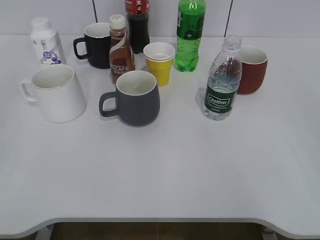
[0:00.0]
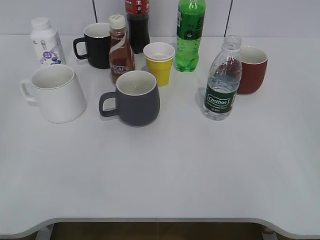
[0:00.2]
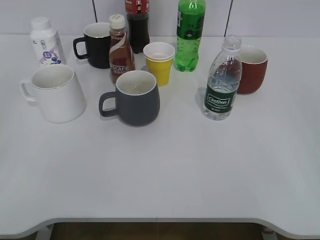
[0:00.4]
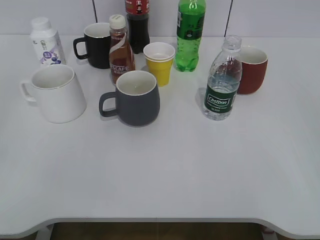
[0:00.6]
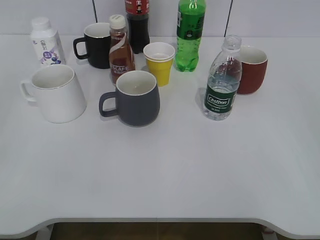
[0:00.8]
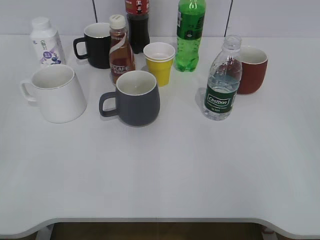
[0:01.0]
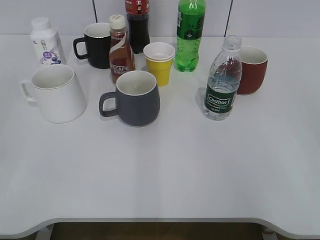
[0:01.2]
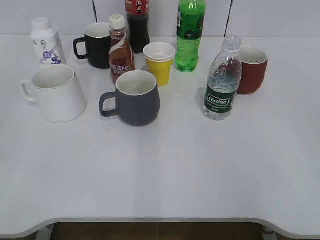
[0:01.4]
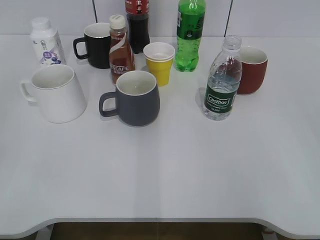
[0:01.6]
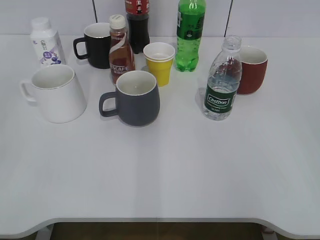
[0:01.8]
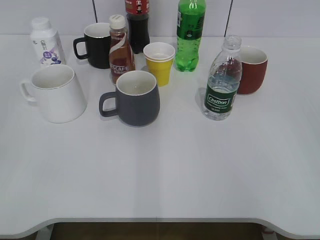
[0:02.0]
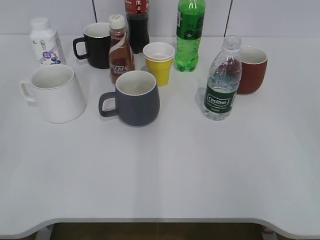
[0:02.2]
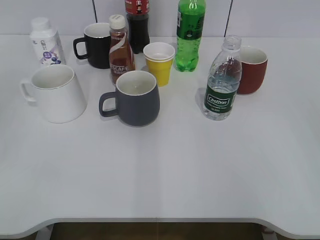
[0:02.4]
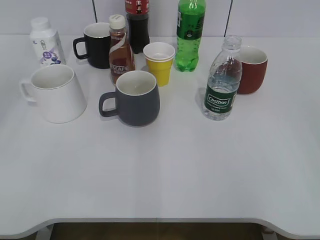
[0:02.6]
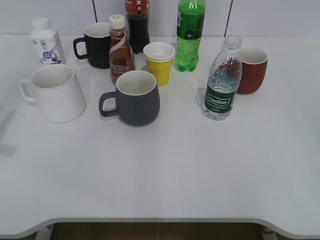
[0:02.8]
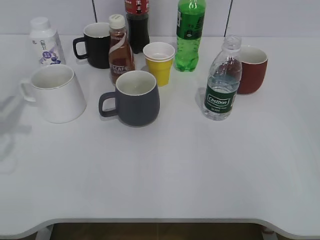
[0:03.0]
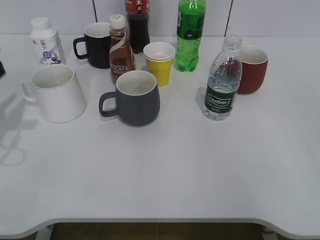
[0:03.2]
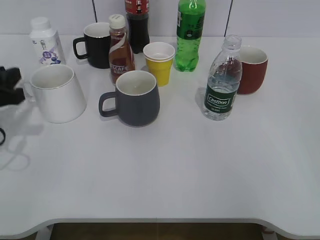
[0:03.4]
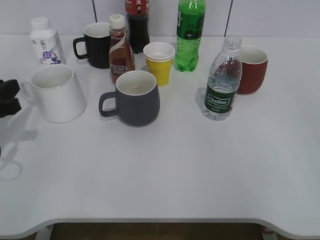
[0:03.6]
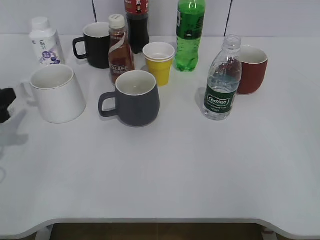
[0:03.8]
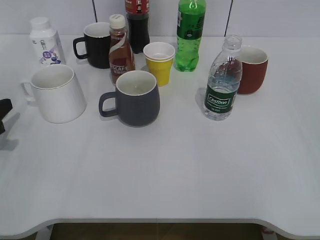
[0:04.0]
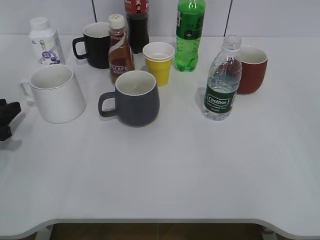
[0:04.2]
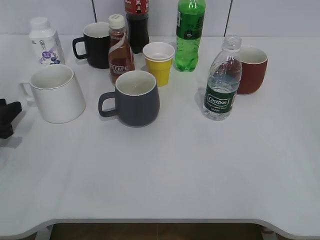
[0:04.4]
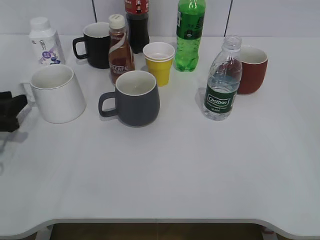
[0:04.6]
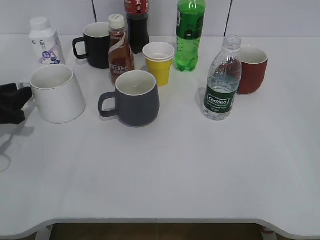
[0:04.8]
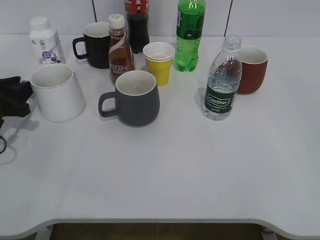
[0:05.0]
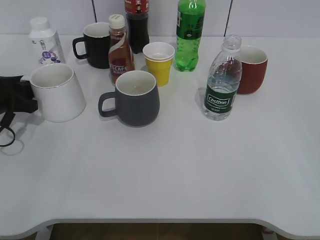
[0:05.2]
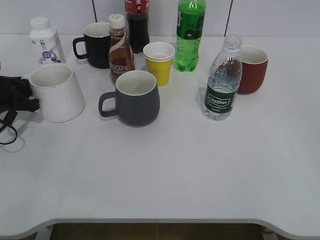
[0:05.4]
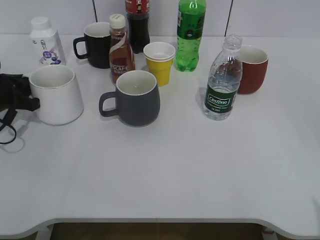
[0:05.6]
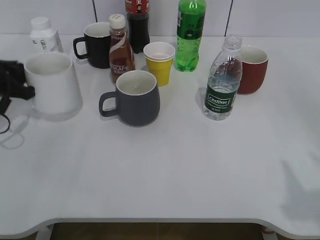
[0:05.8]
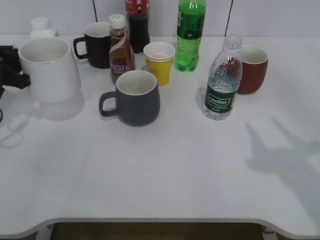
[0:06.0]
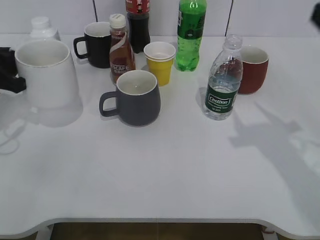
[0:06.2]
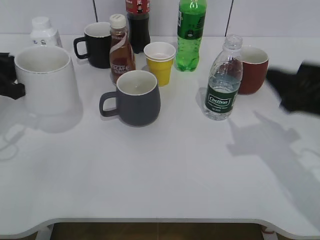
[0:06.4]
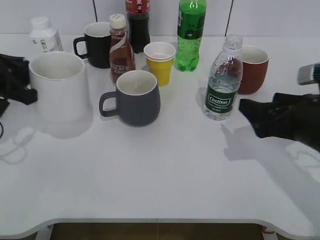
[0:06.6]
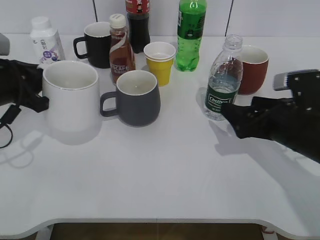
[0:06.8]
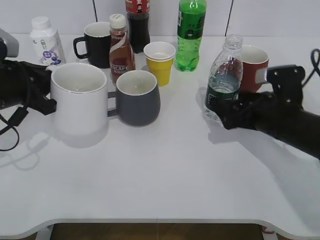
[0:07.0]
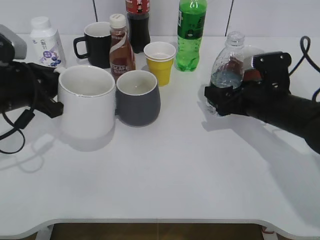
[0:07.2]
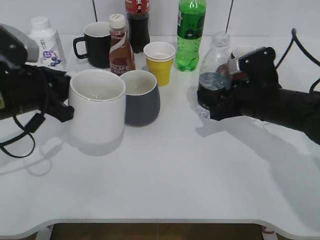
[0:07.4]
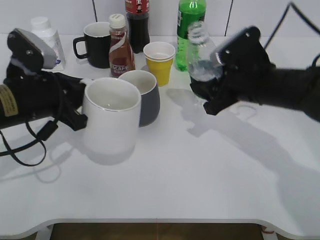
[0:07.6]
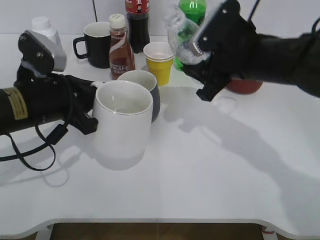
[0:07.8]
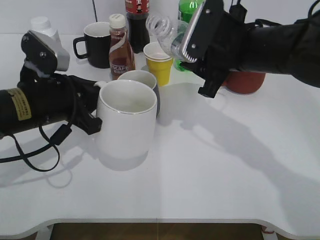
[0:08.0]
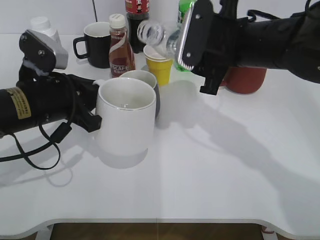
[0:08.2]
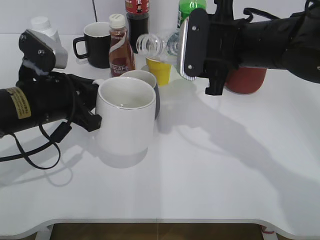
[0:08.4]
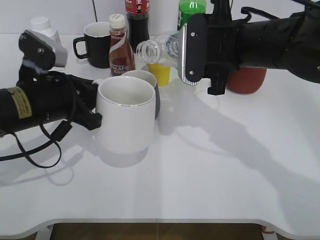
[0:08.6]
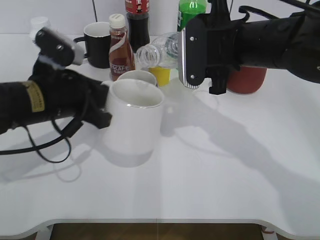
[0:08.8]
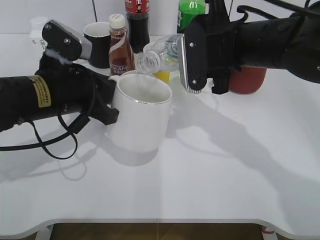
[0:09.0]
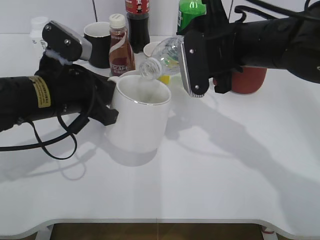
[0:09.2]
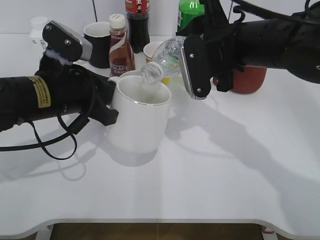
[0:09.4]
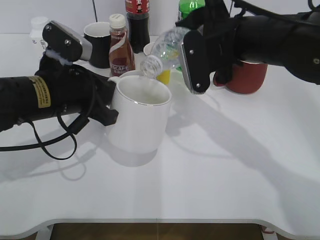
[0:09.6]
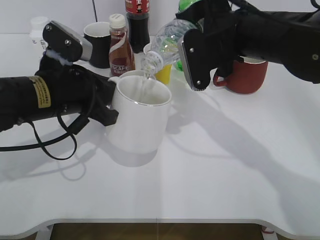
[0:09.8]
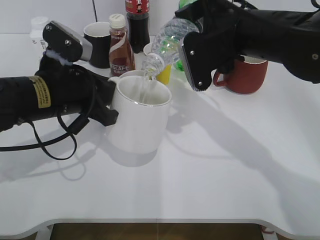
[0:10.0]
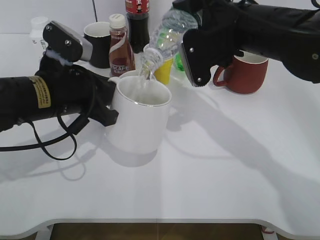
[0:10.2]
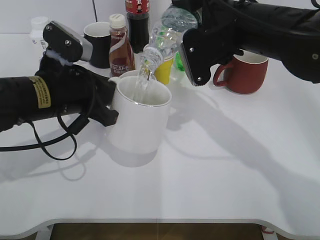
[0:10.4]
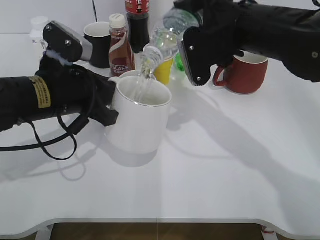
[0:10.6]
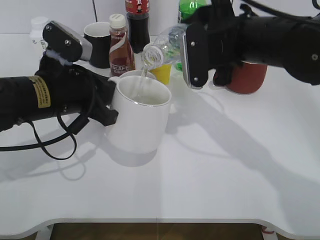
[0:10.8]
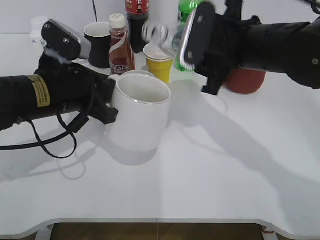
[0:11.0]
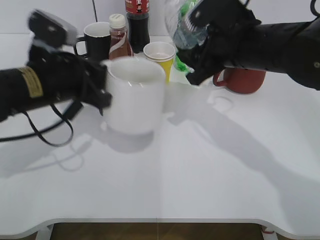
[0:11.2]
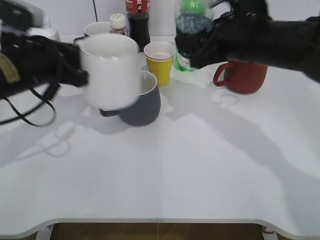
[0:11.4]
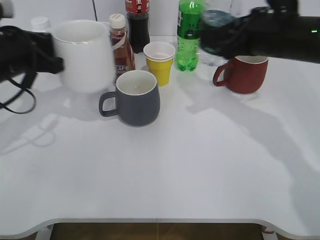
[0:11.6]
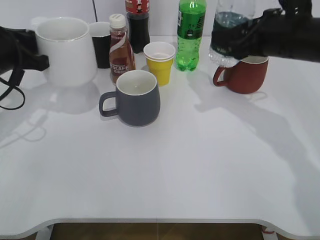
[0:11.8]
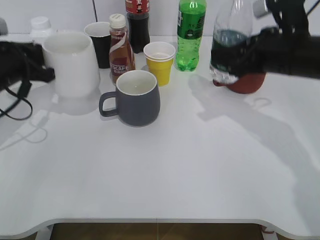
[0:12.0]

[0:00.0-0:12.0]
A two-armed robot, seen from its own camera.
Step, 0:02.2 to 0:05.4: Grasp the white cup with left gripper.
Step, 0:05.6 to 0:06.6: Lift the white cup with left gripper.
Step, 0:06.8 to 0:07.0: Grasp the bottle with water with right gripper.
Step, 0:07.2 to 0:10.8: Pour the water from bottle to cup with right gripper.
0:01.6 to 0:03.0: The left gripper travels forward by about 20 cm.
0:03.0 to 0:04.4: The left gripper shifts some 15 cm downward.
0:04.4 to 0:06.0: The left gripper goes about 10 cm upward and forward, and closes its fingers. Meanwhile the right gripper goes approximately 15 cm forward and upward.
0:06.0 to 0:07.6: The right gripper travels forward, downward and to the left by about 30 cm, and opens, then closes again. The left gripper goes about 10 cm to the right and backward.
0:07.6 to 0:09.0: The right gripper heads upward, covering about 5 cm.
0:10.4 to 0:12.0: The right gripper goes roughly 10 cm to the right; the left gripper moves to the left and forward, approximately 15 cm.

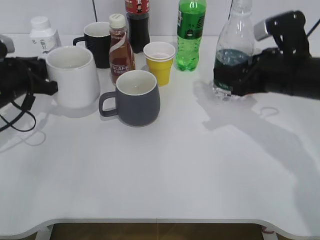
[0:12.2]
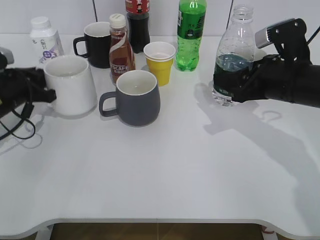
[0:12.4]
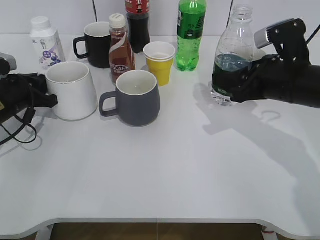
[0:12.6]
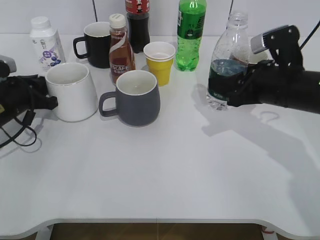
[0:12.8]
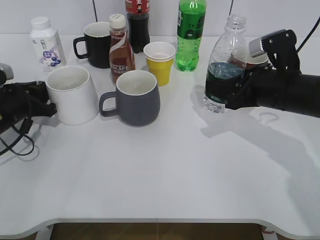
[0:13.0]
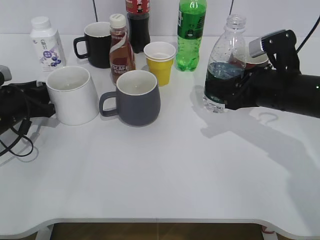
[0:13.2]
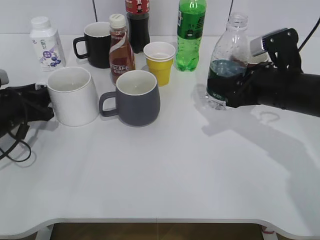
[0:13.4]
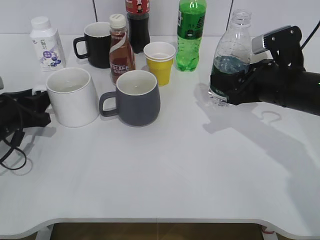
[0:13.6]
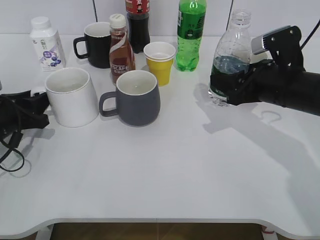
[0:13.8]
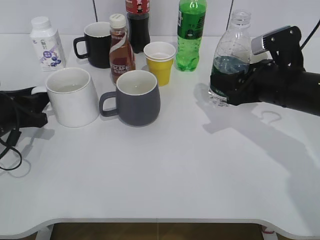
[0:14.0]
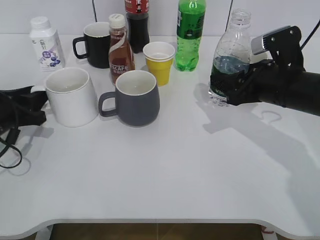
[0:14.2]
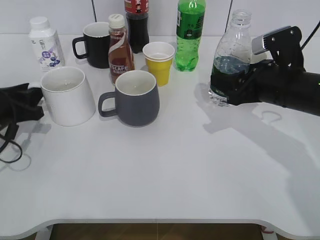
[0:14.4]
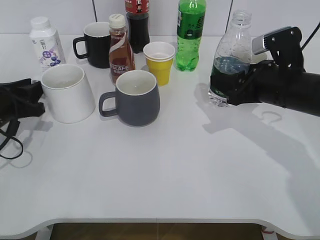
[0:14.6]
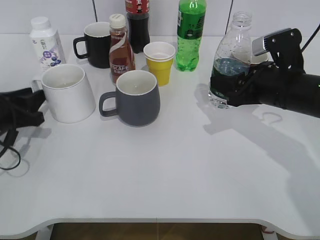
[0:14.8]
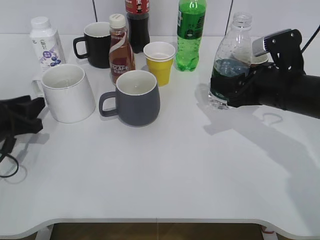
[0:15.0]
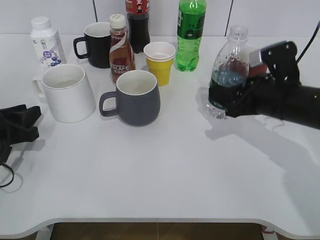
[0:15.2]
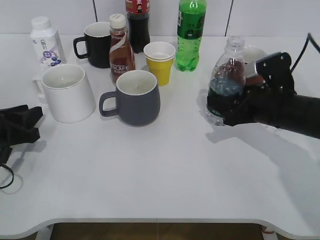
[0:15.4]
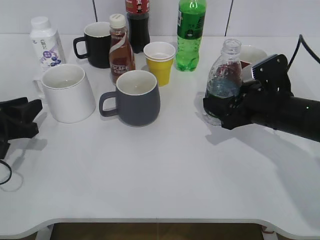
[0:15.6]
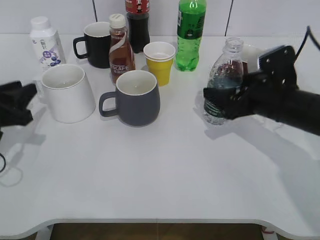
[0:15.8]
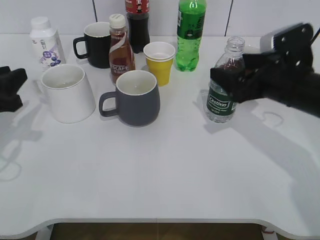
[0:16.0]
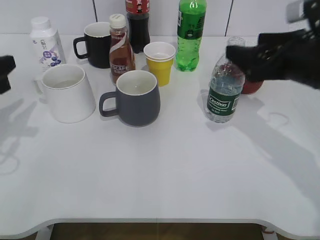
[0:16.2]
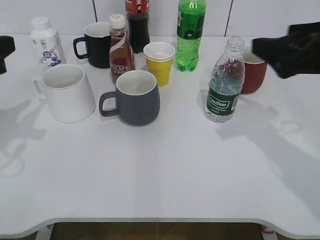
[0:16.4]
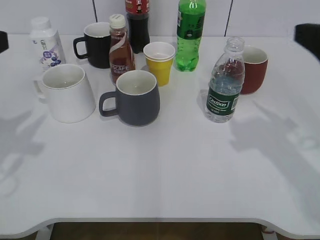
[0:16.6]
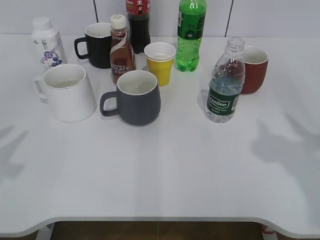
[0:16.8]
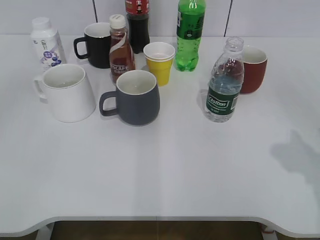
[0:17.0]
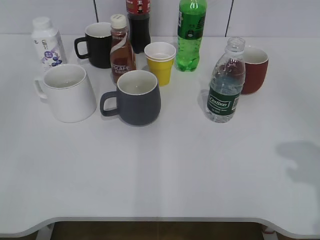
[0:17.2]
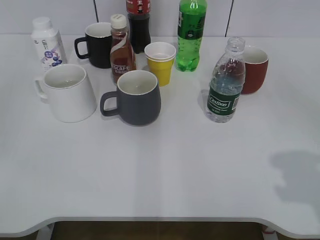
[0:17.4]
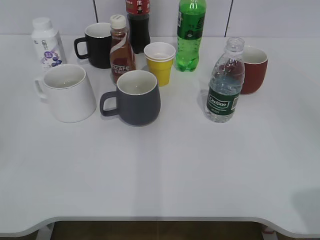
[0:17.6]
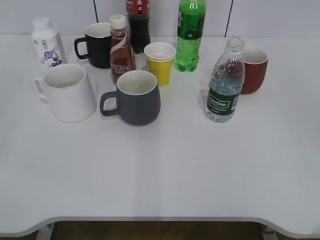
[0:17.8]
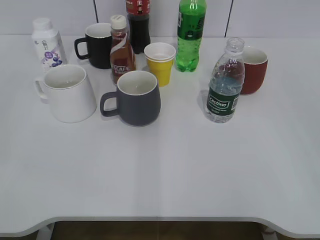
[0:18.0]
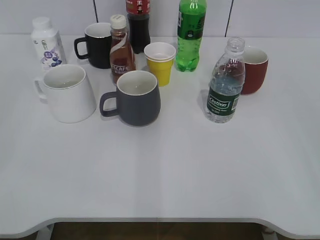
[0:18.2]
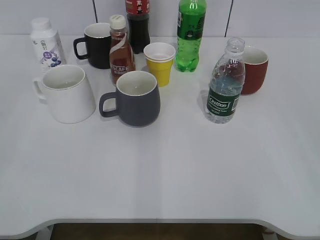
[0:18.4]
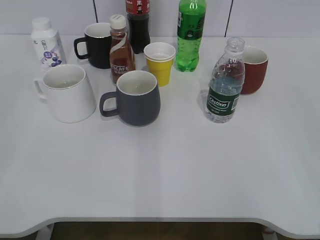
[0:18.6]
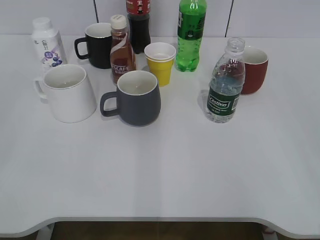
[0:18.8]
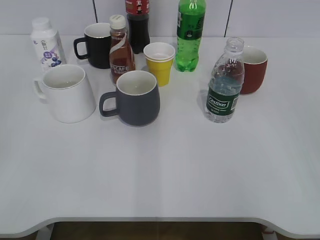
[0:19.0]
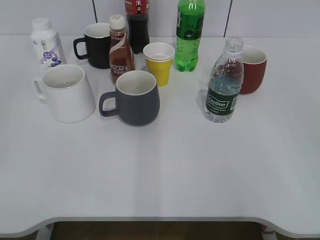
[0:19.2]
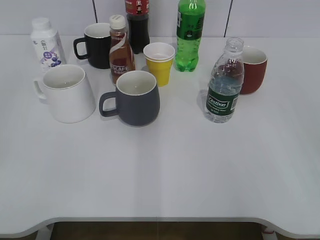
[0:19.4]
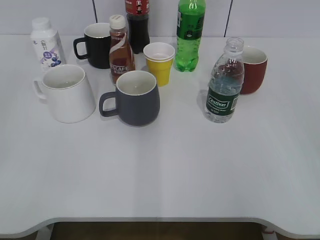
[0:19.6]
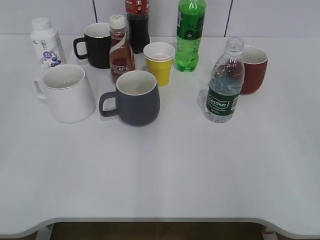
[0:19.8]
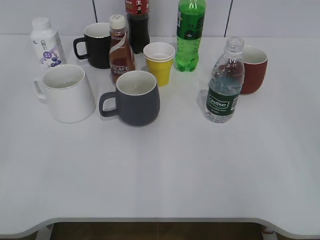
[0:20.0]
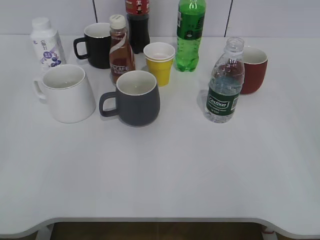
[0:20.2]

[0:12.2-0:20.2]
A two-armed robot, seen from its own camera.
Step, 0:13.2 to 0:15.8: Place the water bottle on the table with right gripper.
0:12.2 to 0:13.8: The left gripper ends up some 5 cm from where it was, and opens.
0:13.8 to 0:15.4: The grippers move only a little.
0:15.4 to 0:17.0: The left gripper shifts approximately 25 cm upward and backward. The right gripper travels backward, upward and to the right by some 25 cm, and opens its fingers.
0:17.0 to 0:18.6: The right gripper goes roughly 15 cm backward; the left gripper shifts roughly 10 cm backward, and opens its fingers.

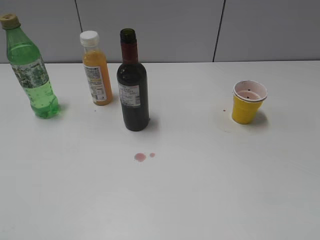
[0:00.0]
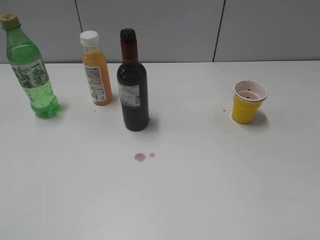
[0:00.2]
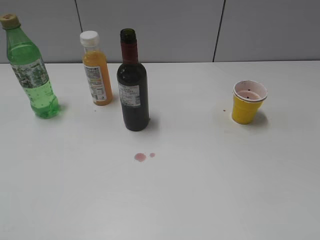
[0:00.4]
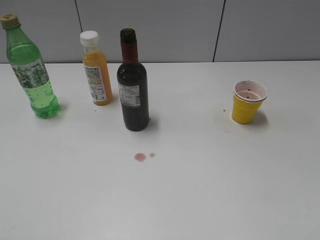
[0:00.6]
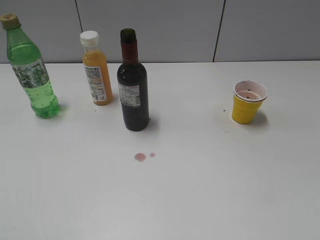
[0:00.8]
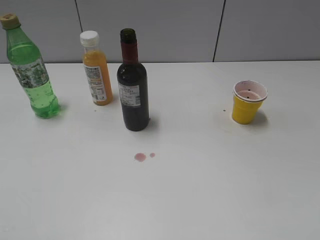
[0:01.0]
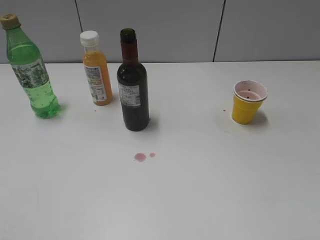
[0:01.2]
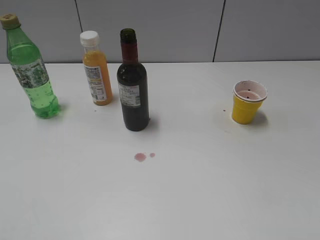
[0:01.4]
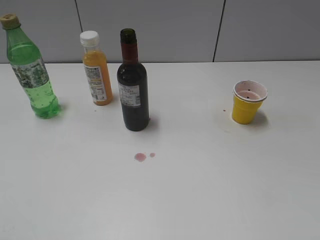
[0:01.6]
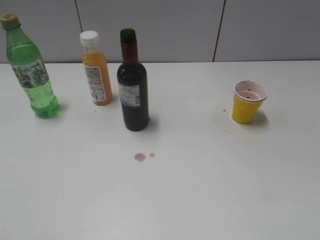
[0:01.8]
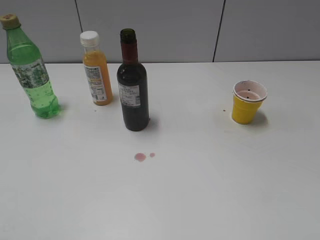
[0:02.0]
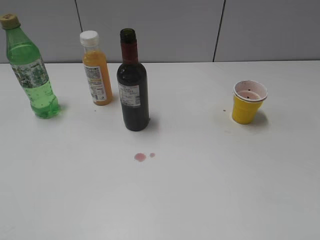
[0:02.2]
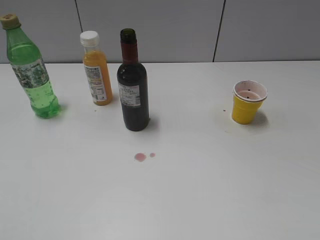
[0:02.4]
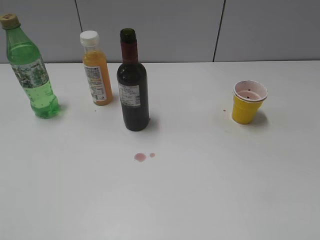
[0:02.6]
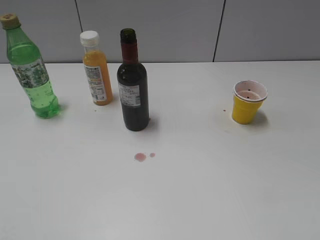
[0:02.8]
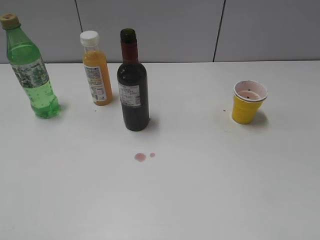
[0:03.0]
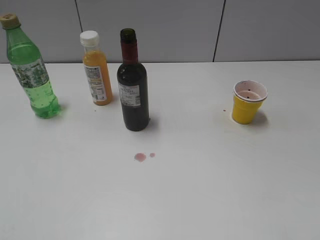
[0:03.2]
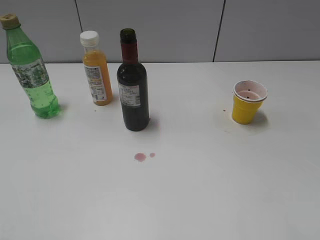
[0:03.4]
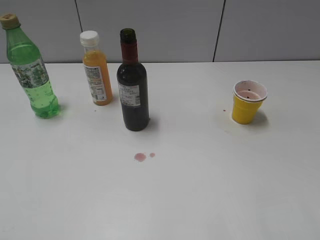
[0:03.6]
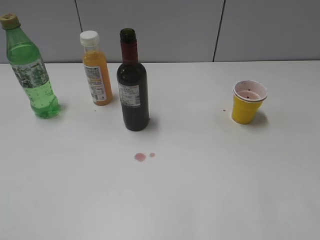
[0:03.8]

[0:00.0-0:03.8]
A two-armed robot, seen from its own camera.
0:01.2 to 0:02.6: Neither gripper changes place.
